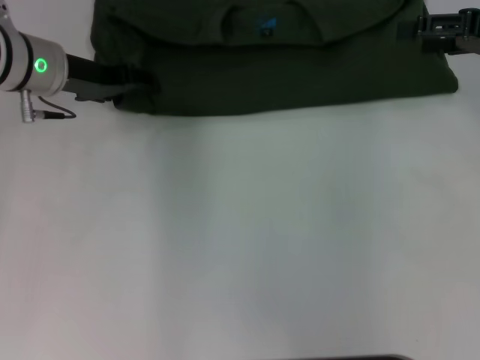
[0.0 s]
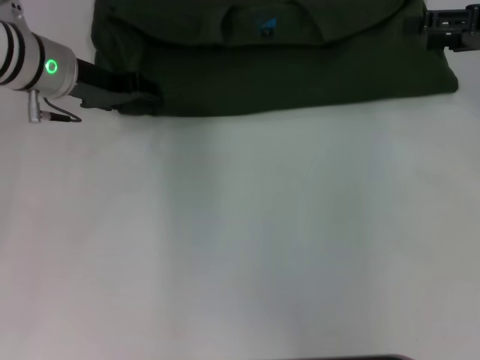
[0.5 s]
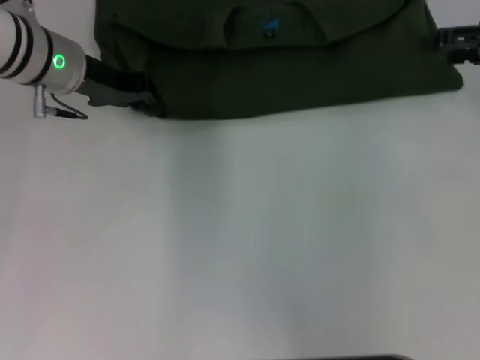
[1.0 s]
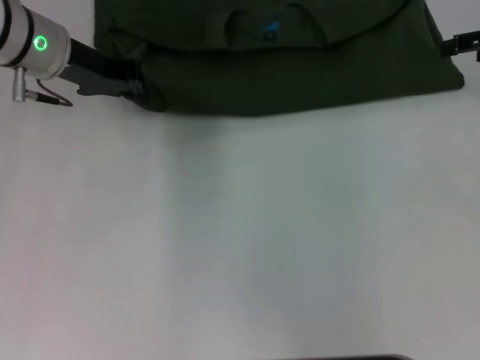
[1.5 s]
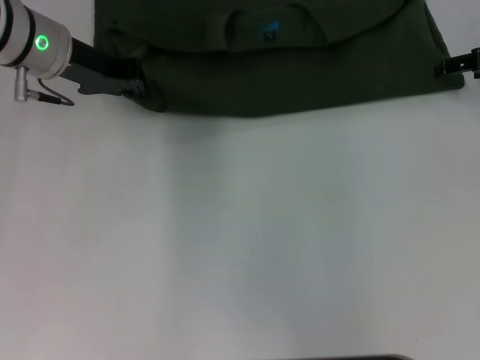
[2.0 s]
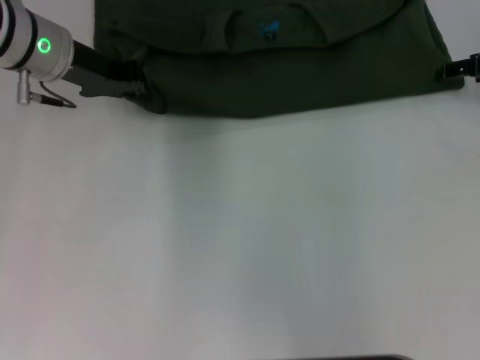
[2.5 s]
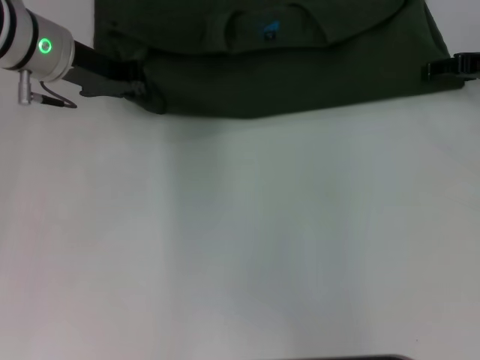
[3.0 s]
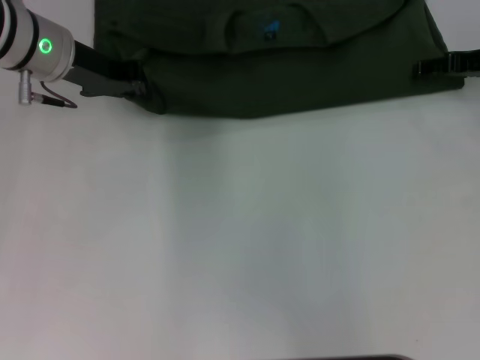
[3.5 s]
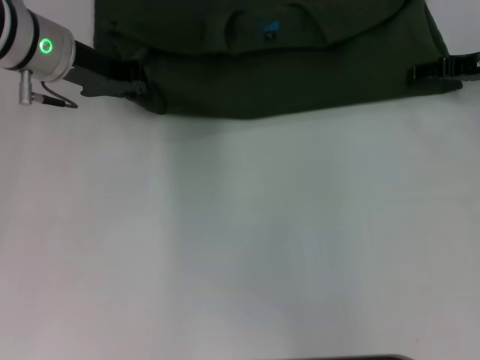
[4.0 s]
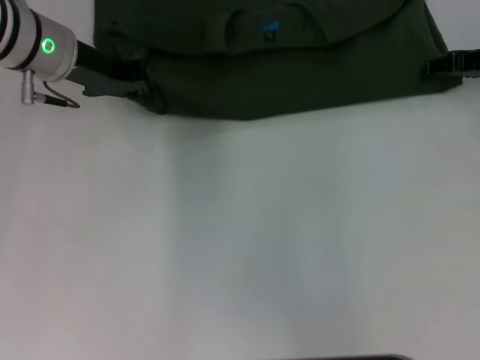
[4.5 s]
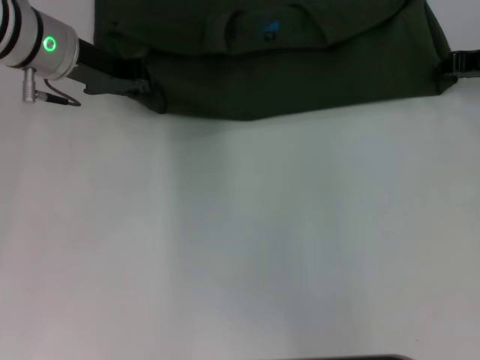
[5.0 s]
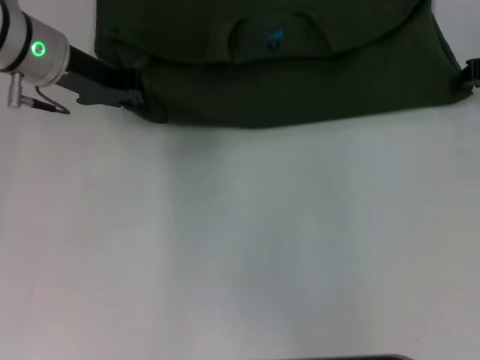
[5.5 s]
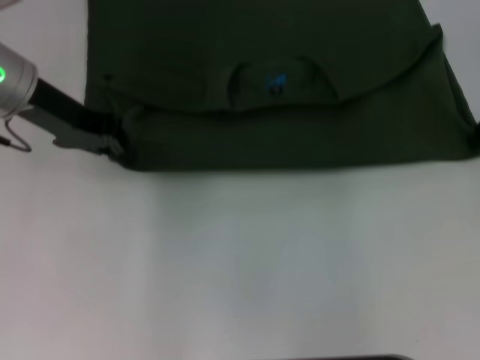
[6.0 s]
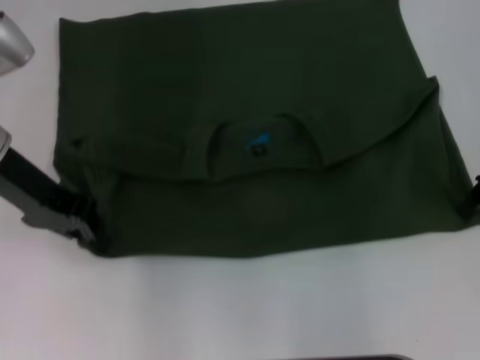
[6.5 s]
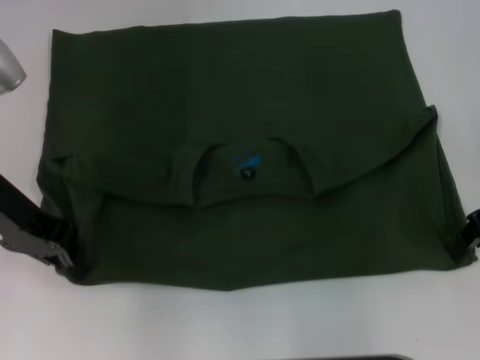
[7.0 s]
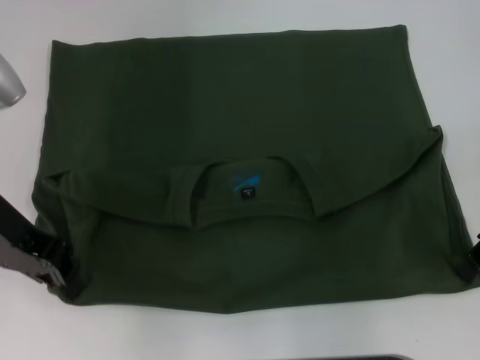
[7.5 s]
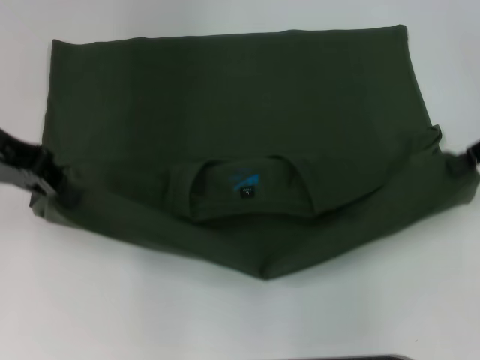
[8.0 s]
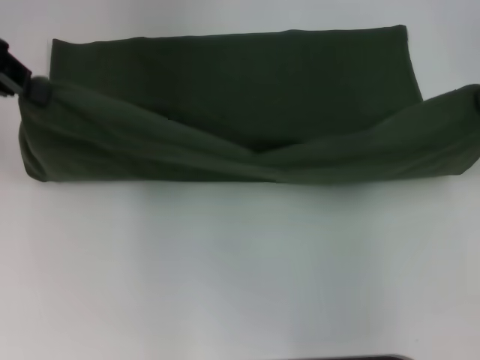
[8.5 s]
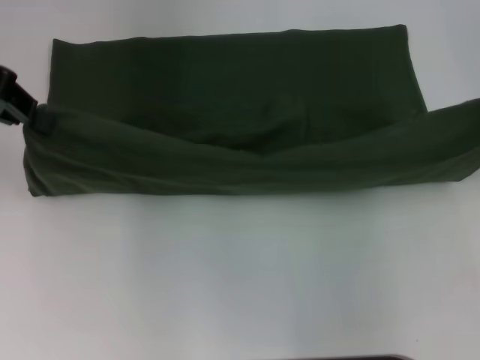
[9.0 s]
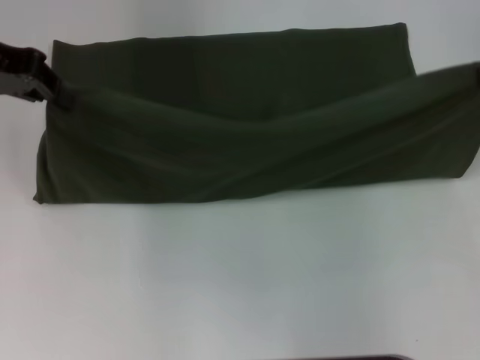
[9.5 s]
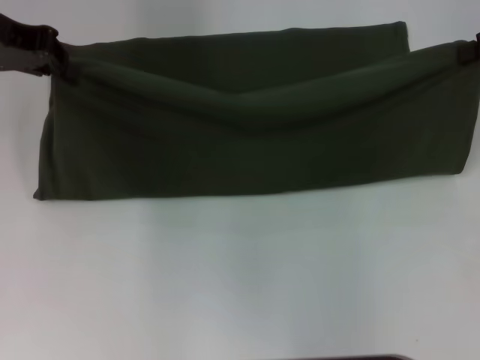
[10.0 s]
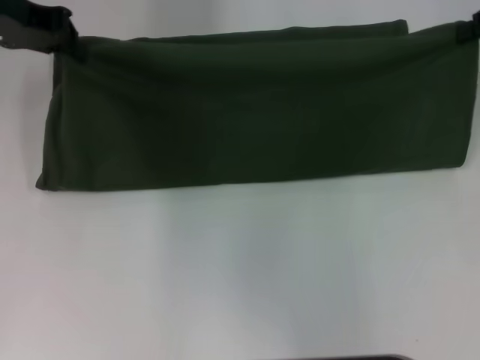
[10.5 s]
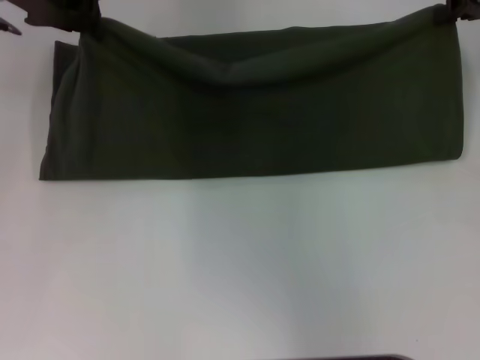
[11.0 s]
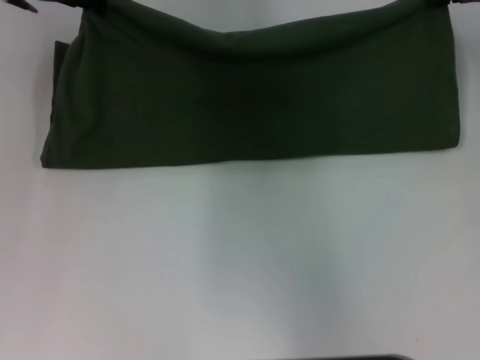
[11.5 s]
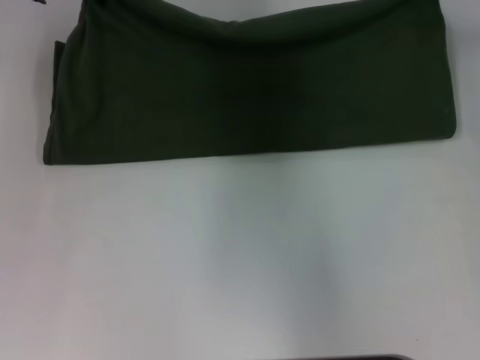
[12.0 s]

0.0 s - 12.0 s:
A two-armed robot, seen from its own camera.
Step, 0.0 s - 7.0 s: Pull the clothes with your left hand.
Step, 0.0 s - 7.0 s: Pull the clothes with your right hand.
0.0 s - 2.0 s: The left gripper closes.
2.0 s - 4.0 s: The grippers stay close to where they were, moving slightly.
4.0 s - 6.0 s: The right gripper moves about 5 cm, and closes its fingers.
6.0 s - 8.0 s: The left gripper moves some 5 cm. Meanwhile the right gripper moves upward, about 5 cm.
8.0 s - 10.0 s: The grippers both shift forward by about 5 cm.
10.0 s - 12.0 s: The left gripper heads to the right and forward, covering about 10 cm. Meanwhile the right gripper goes approximately 10 cm forward and to the left.

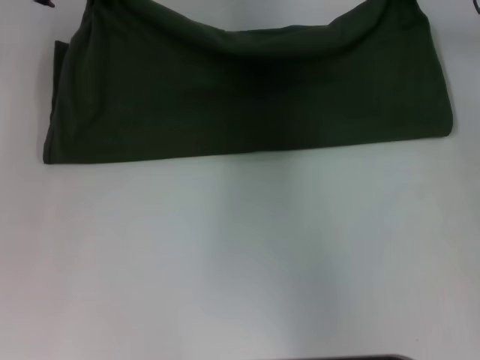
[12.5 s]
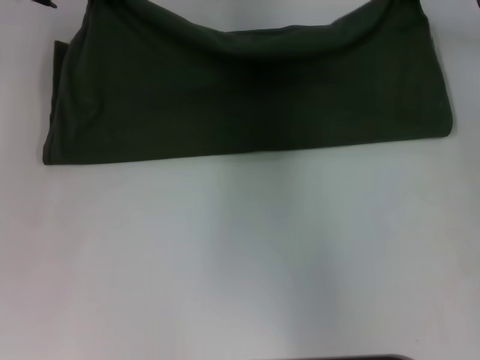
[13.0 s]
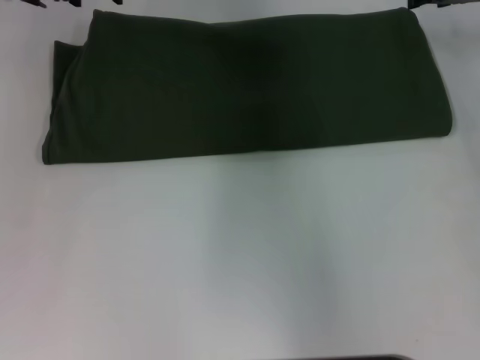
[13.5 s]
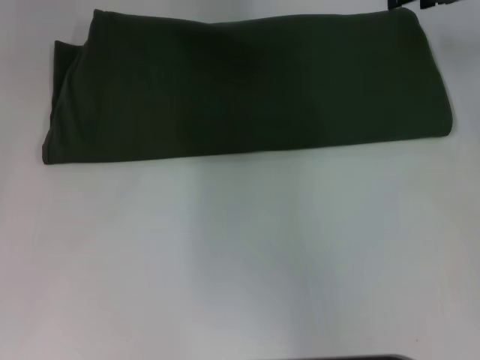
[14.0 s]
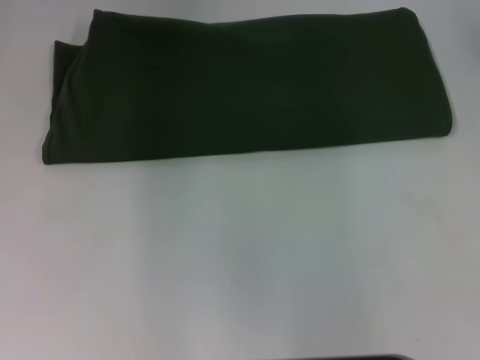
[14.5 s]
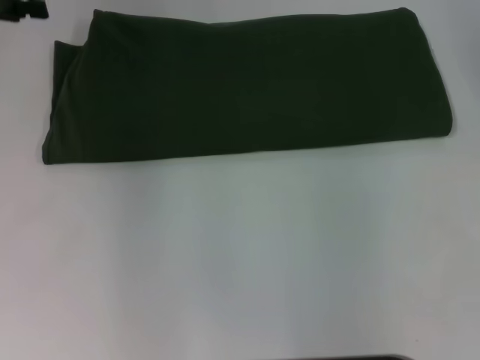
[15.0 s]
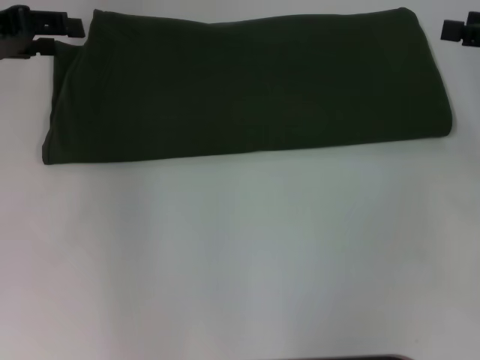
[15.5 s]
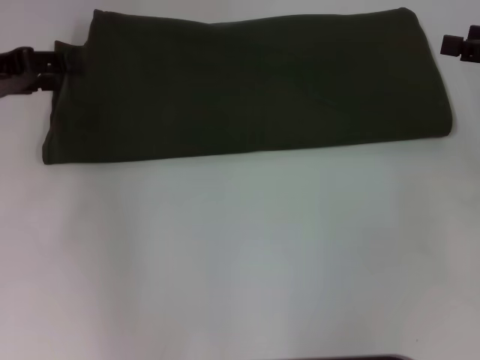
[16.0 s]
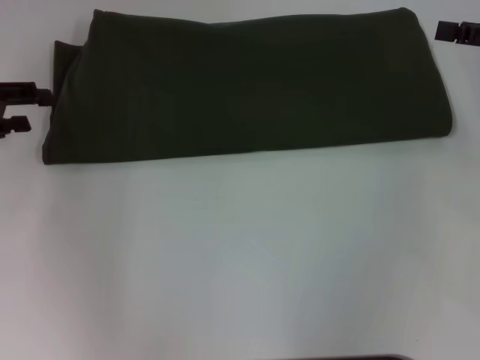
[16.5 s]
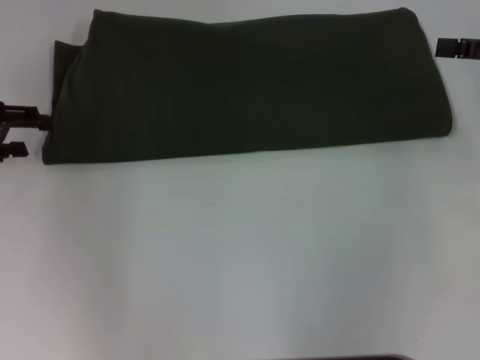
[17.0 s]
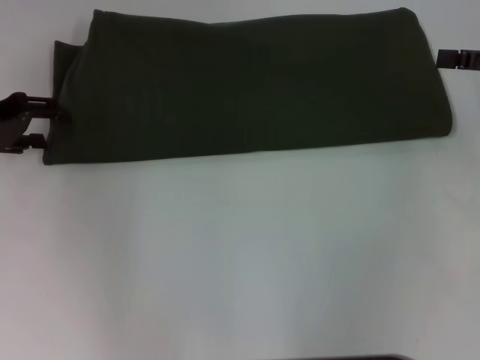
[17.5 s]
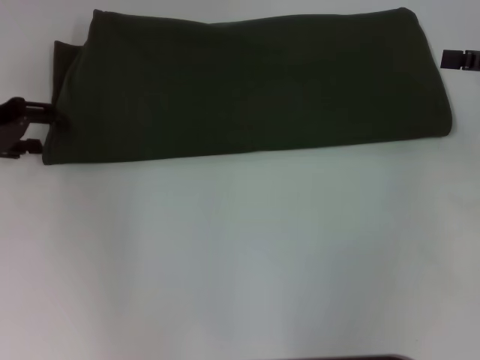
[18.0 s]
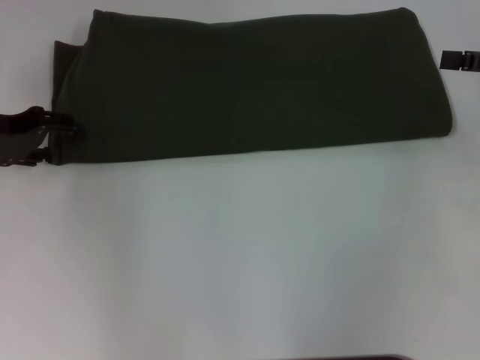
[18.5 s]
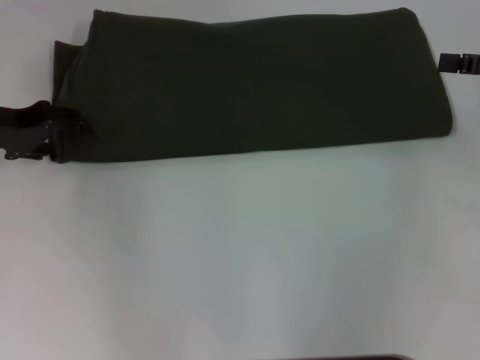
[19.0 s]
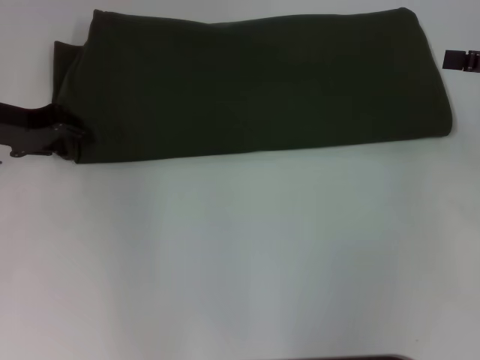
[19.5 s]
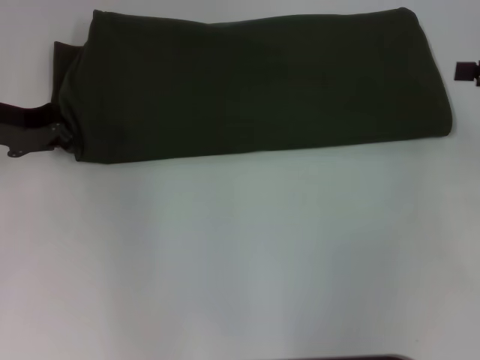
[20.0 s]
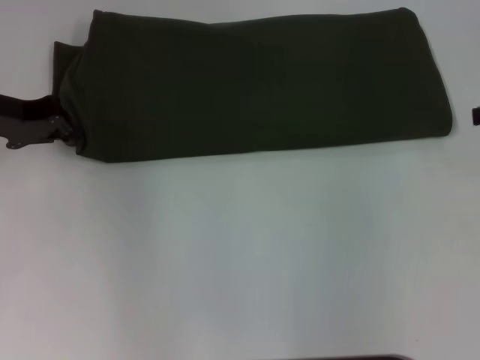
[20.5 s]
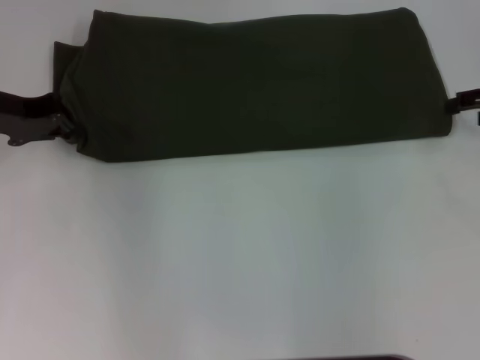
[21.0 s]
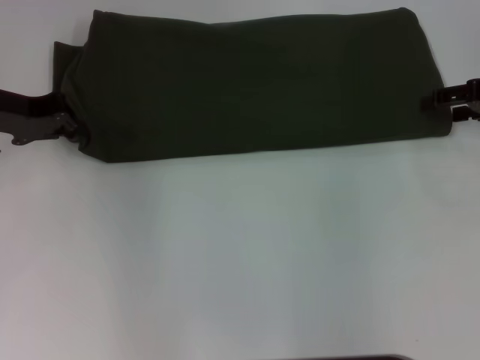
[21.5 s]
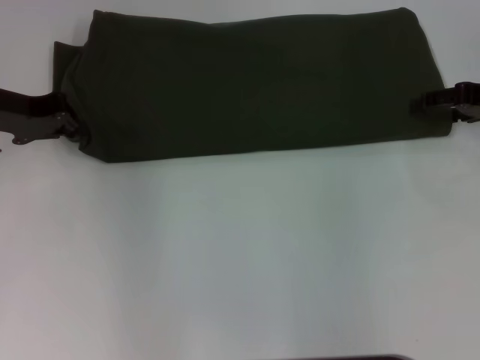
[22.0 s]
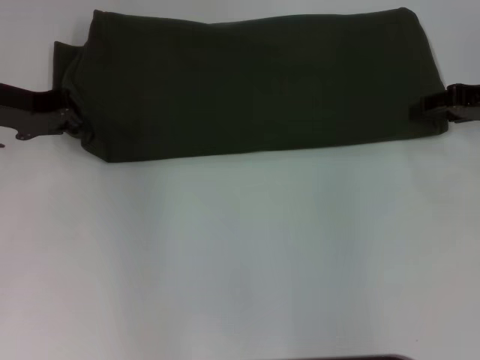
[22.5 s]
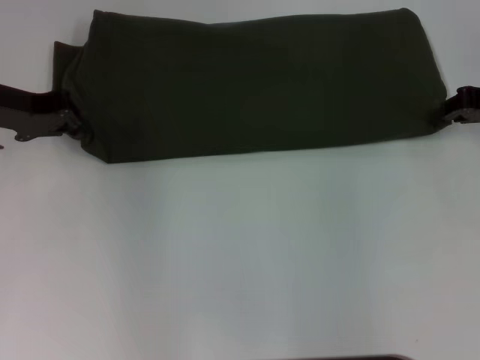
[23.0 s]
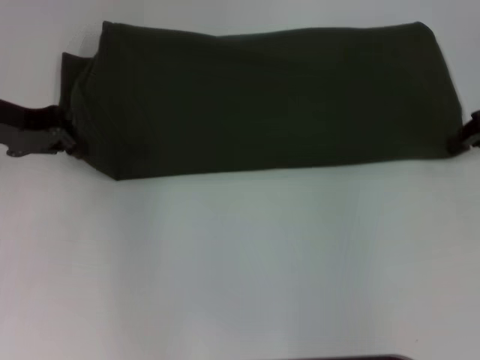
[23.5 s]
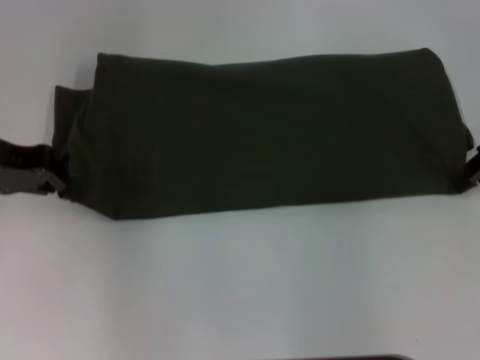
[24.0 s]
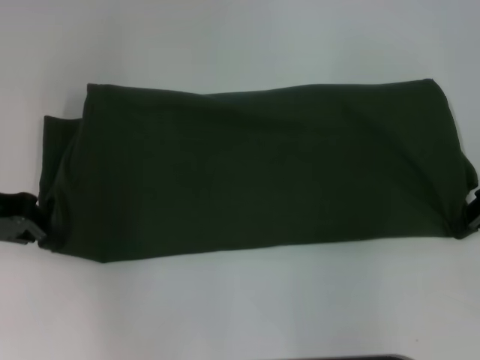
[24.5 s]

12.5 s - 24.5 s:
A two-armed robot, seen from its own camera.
12.5 s - 14.5 s: The left gripper moves to the left, about 10 cm, and opens; the right gripper shifts some 10 cm upward, to the right and backward, and opens.
14.5 s - 16.5 s: The left gripper shifts about 15 cm downward, backward and to the left. Meanwhile the right gripper goes approximately 10 cm downward and backward.
16.5 s - 18.5 s: The left gripper ends up approximately 5 cm from where it was.
18.5 s - 20.5 s: The left gripper closes up.
20.5 s - 22.5 s: The right gripper moves downward and to the left, approximately 5 cm.
22.5 s - 24.5 s: The grippers both shift backward by about 5 cm. The right gripper closes up.

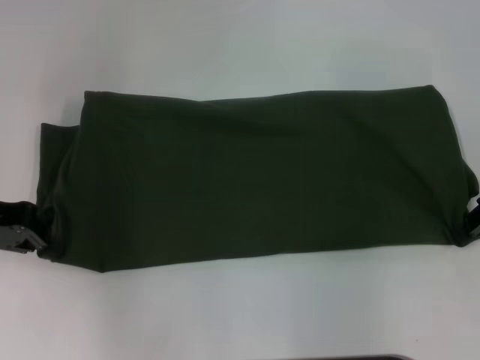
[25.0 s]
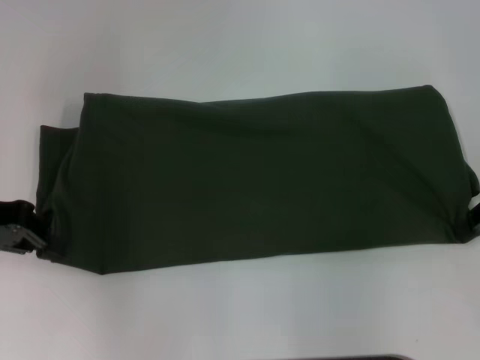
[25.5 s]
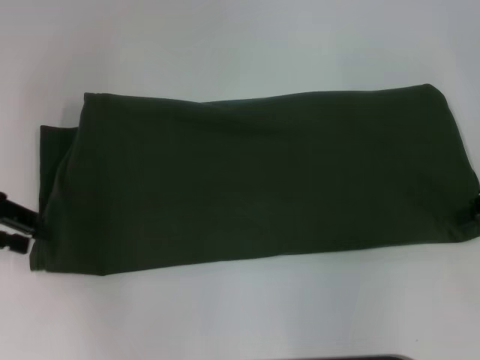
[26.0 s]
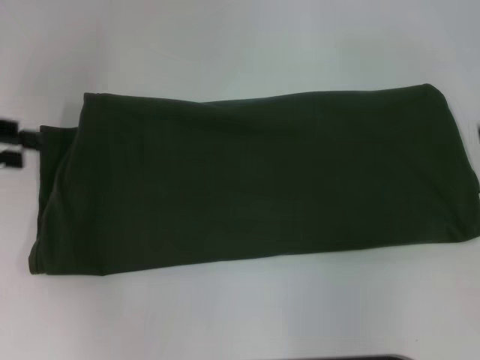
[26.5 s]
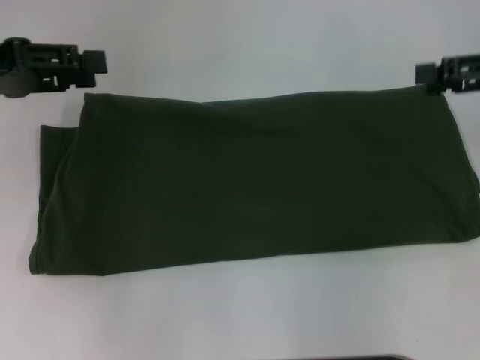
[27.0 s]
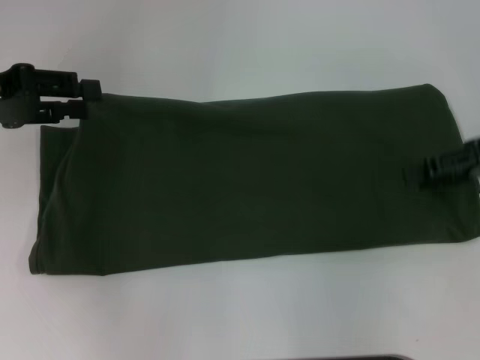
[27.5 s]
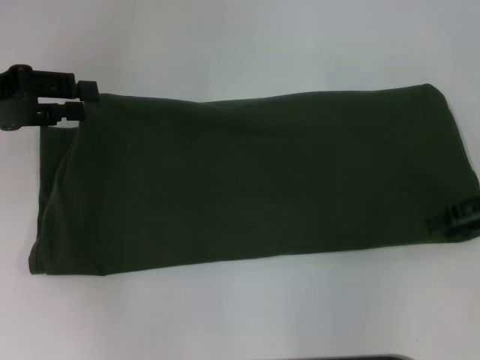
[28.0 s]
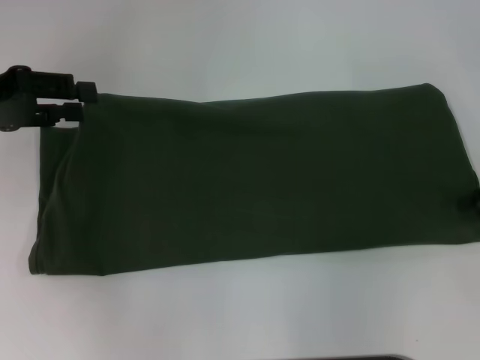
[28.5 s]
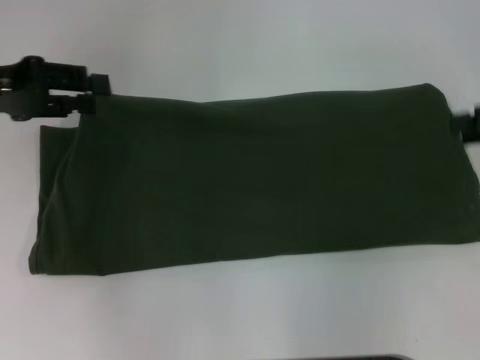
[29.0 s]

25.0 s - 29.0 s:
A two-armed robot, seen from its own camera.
25.0 s - 27.0 s: Both grippers travel together upward, approximately 5 cm. The left gripper opens its fingers, while the right gripper opens its fingers.
